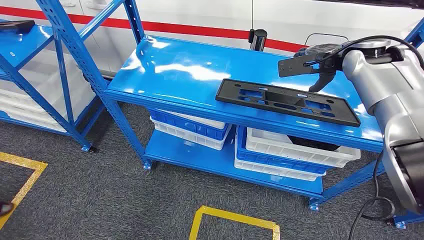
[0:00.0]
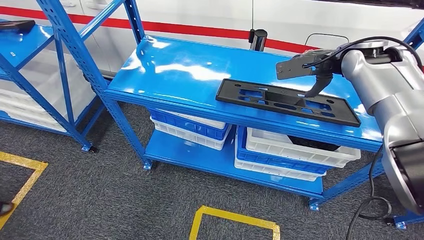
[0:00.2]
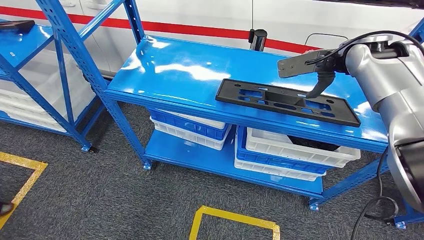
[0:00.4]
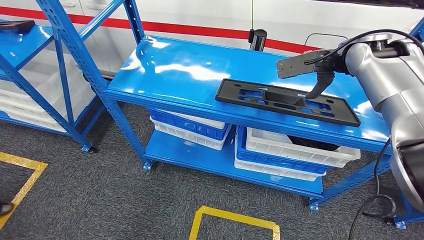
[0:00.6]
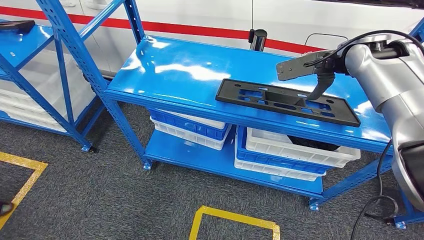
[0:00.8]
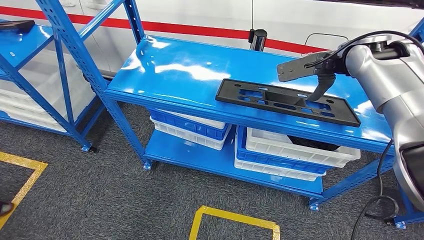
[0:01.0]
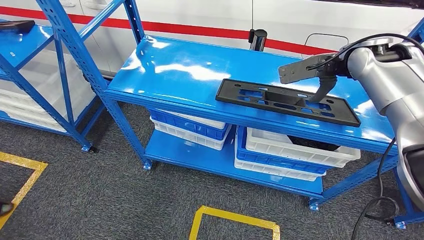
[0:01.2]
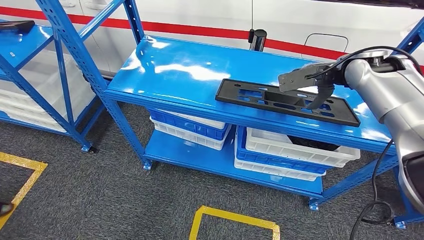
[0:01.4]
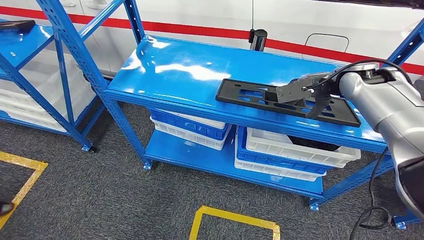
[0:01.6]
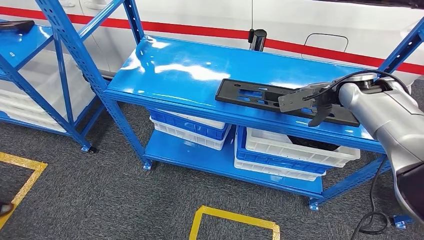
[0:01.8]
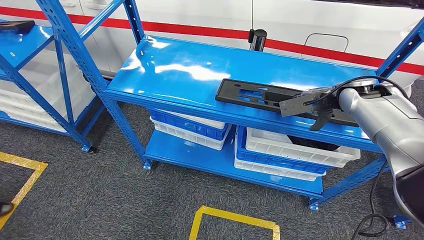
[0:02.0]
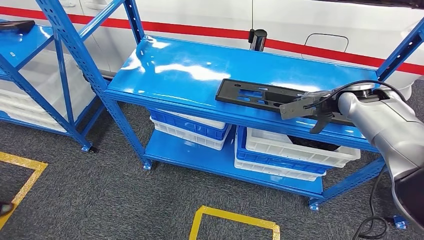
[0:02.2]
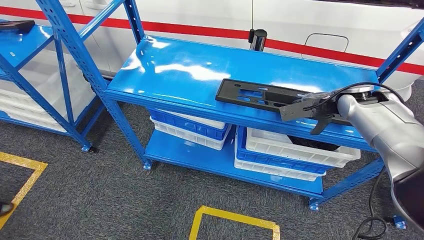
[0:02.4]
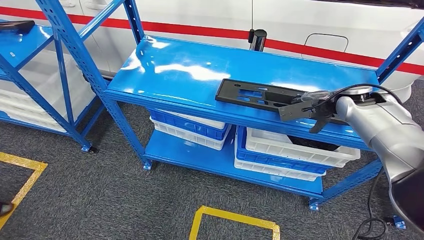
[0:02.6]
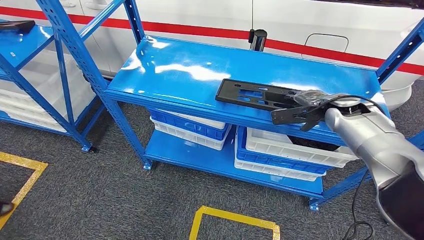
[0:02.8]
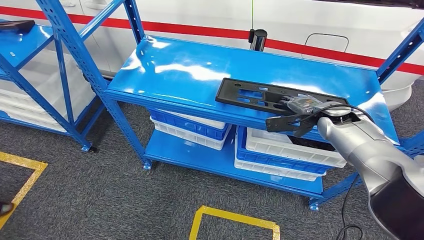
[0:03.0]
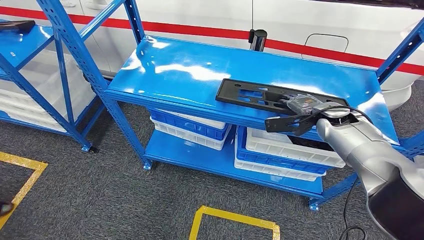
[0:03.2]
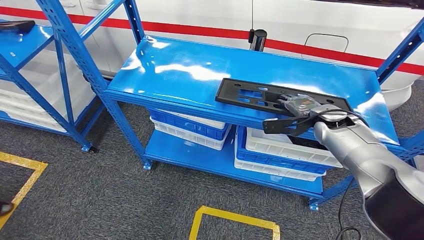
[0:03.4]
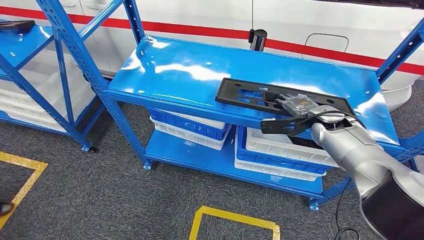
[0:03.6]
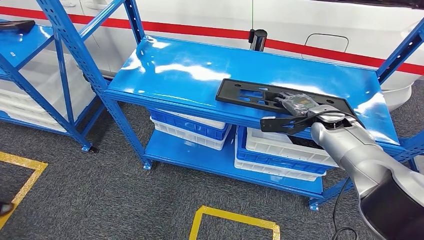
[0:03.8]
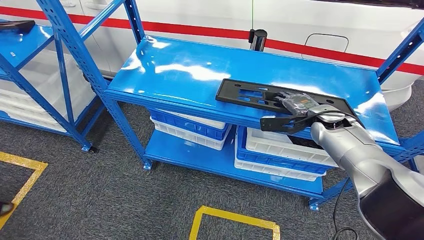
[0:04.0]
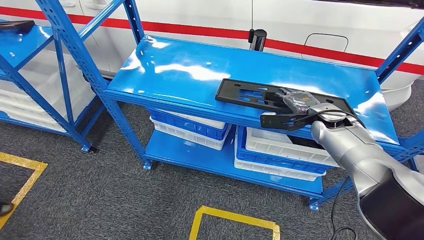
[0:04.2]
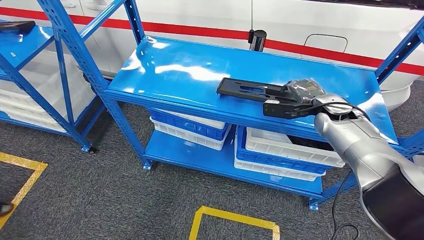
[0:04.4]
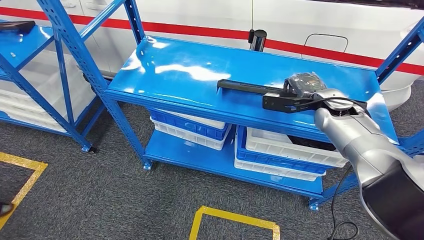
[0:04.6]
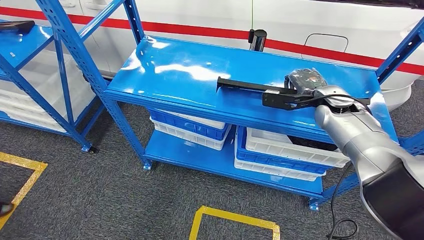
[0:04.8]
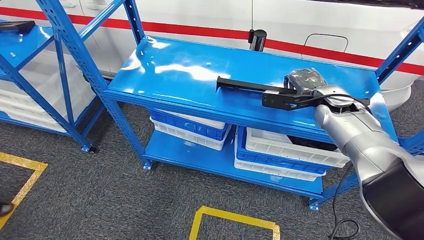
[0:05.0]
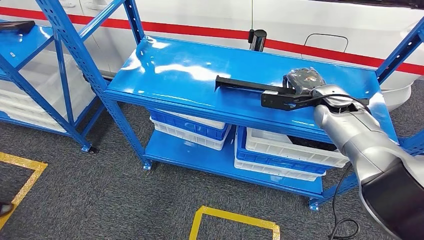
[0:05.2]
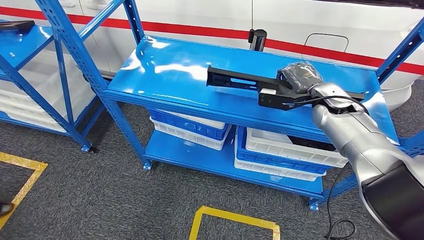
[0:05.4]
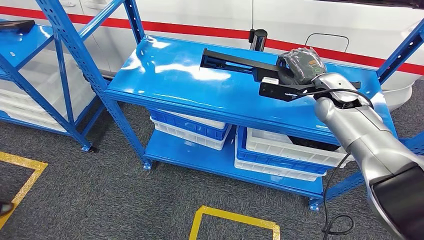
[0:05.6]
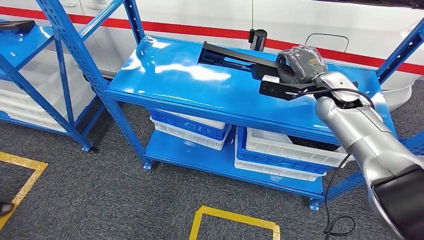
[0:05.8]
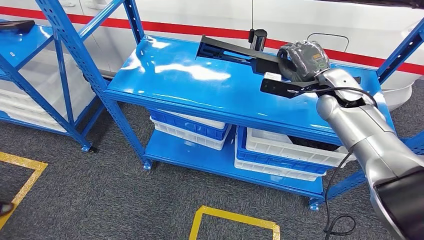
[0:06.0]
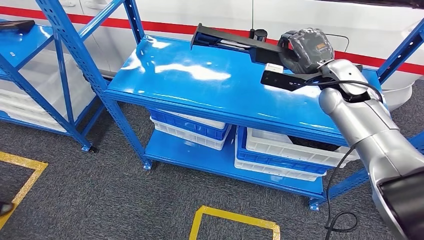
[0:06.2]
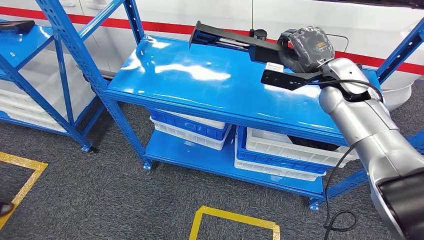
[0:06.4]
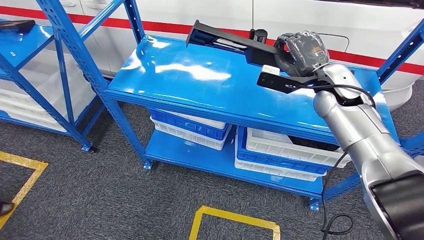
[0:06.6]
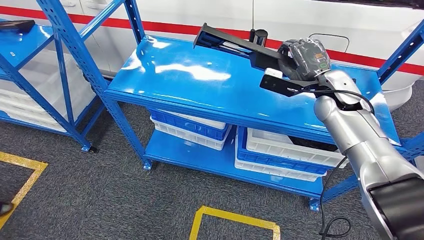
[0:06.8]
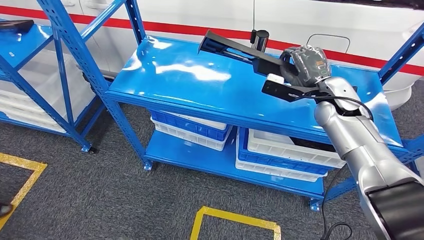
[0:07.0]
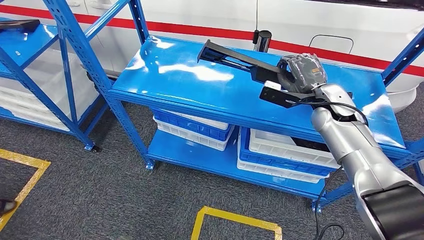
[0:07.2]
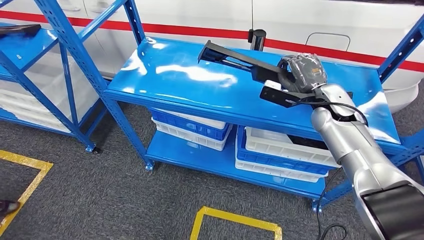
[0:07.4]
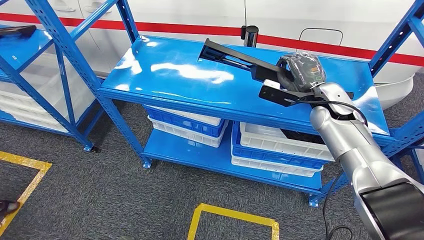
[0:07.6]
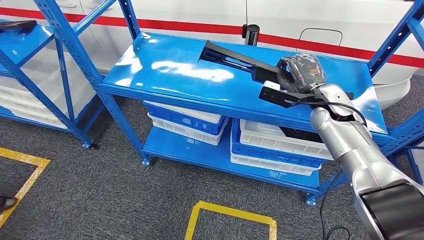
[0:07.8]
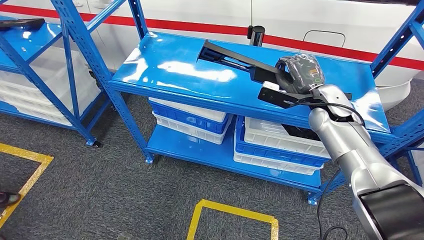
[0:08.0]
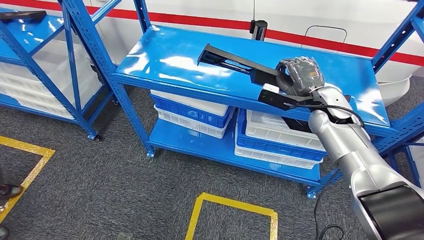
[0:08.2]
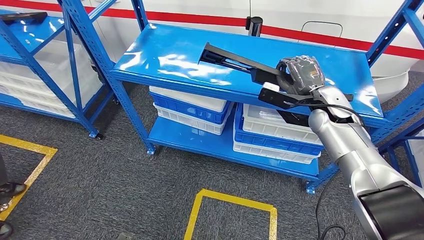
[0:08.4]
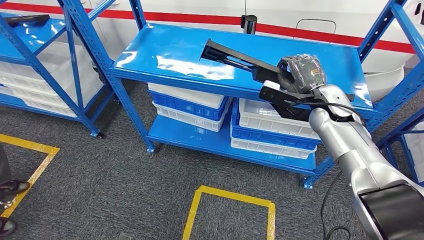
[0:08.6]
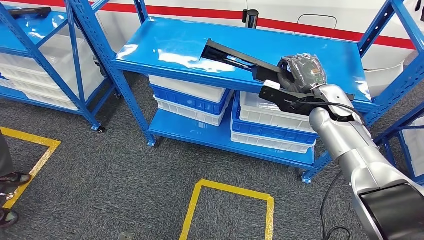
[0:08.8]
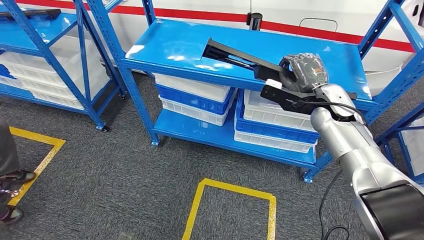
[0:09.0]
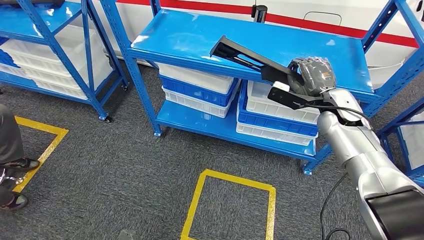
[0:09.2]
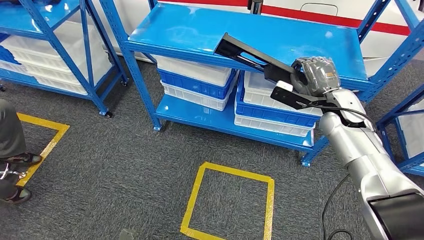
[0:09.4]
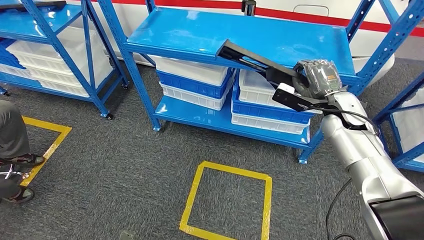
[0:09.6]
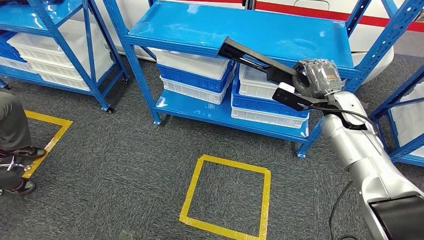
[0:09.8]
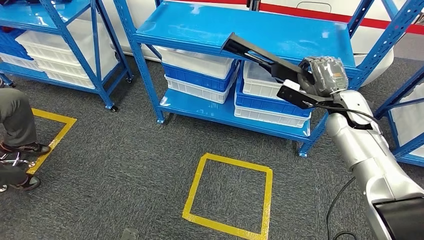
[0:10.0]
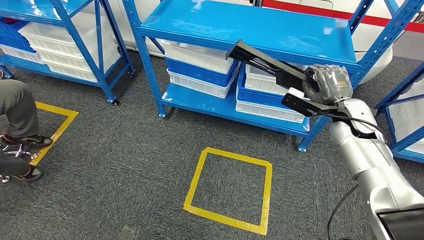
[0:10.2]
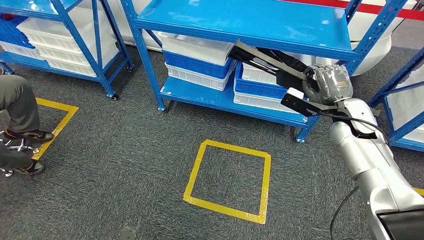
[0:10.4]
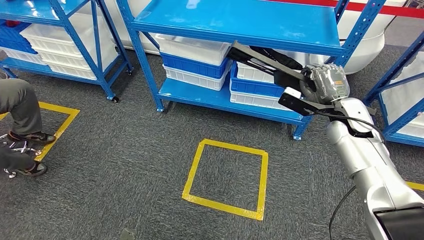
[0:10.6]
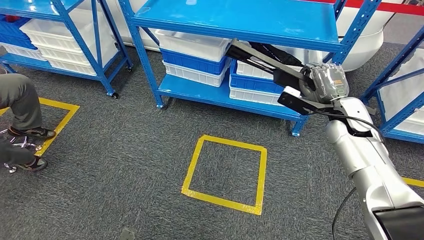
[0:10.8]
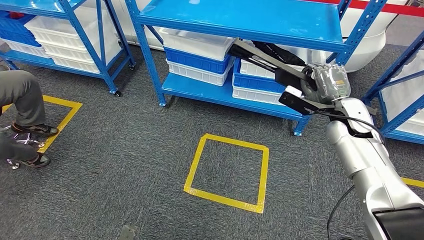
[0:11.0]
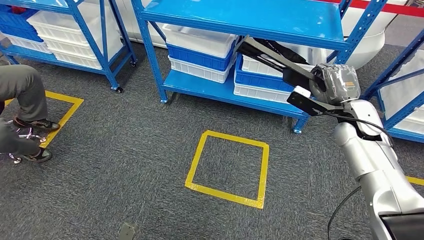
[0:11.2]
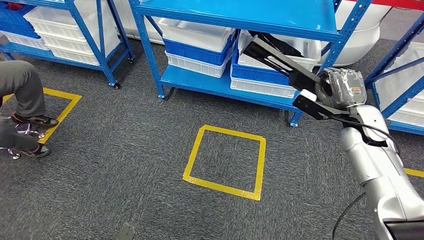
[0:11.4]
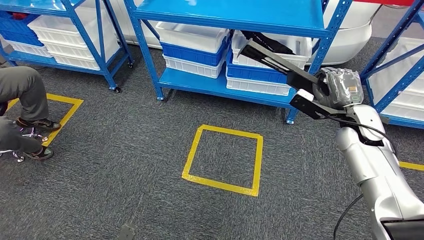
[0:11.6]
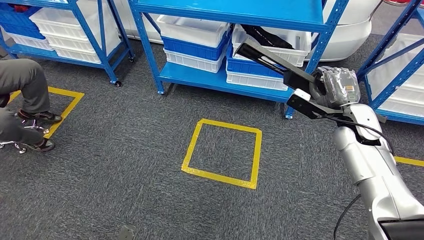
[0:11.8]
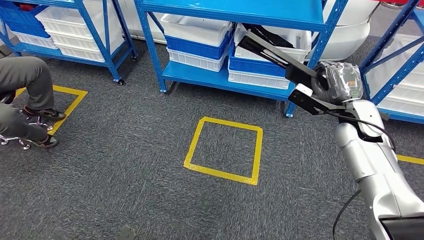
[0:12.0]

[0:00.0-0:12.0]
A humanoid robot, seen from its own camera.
1.6 to 3.0 s: The right hand goes approximately 10 cm downward.
3.0 to 4.4 s: The hands make only small movements.
4.4 to 6.0 s: The right hand travels upward by about 5 cm.

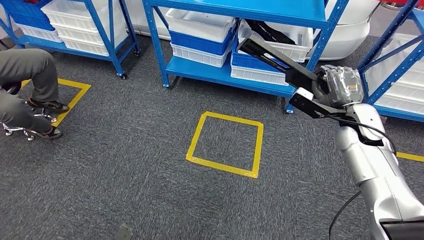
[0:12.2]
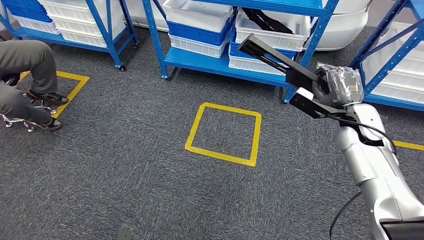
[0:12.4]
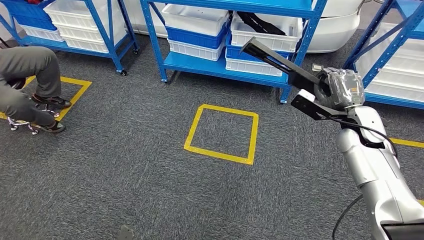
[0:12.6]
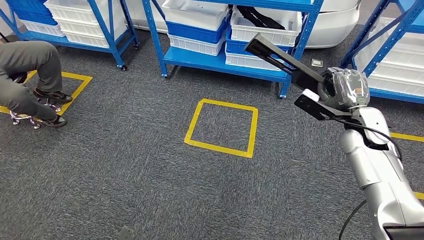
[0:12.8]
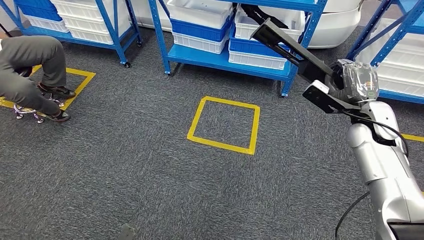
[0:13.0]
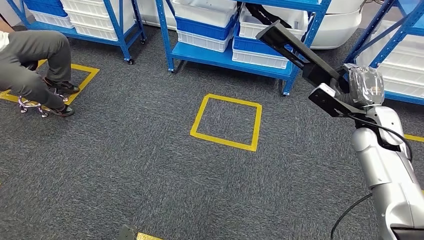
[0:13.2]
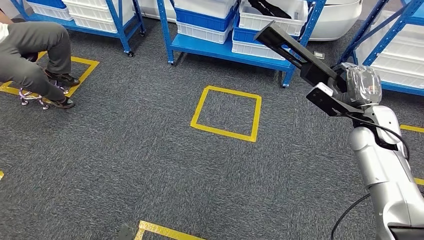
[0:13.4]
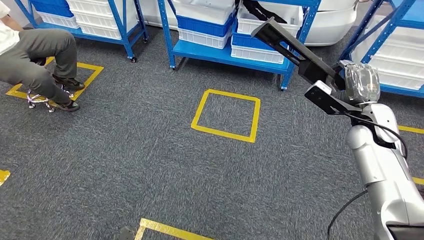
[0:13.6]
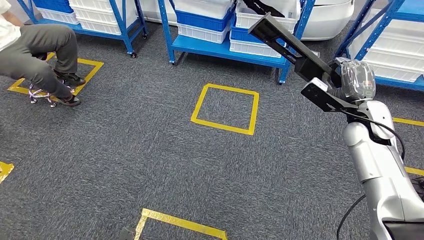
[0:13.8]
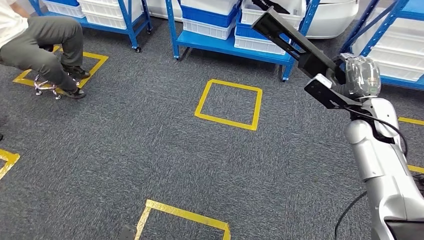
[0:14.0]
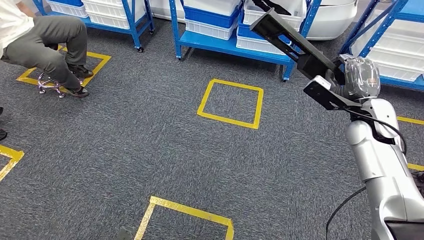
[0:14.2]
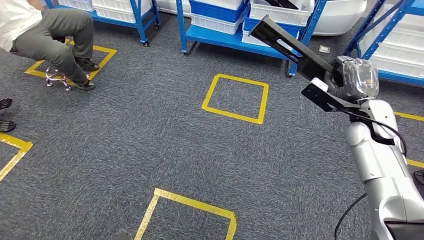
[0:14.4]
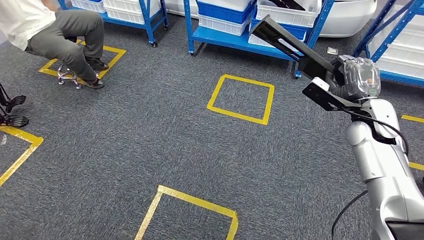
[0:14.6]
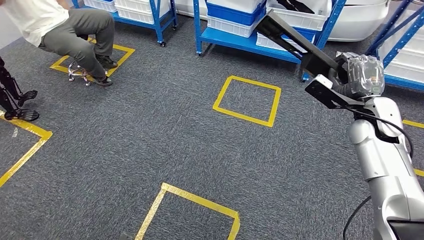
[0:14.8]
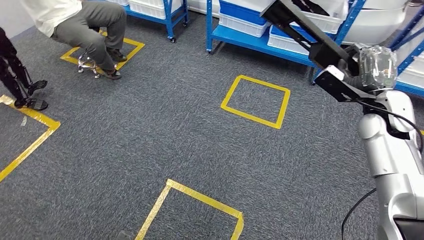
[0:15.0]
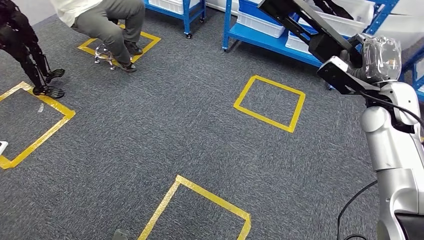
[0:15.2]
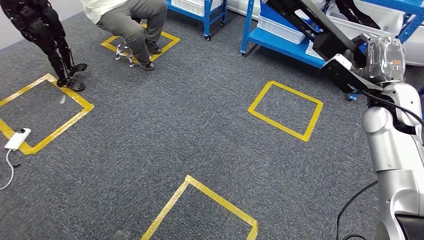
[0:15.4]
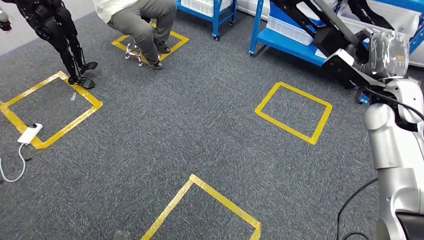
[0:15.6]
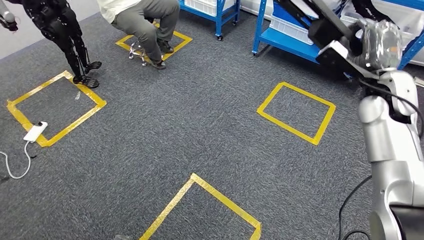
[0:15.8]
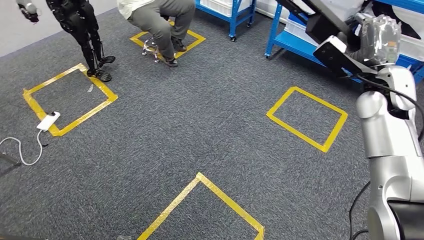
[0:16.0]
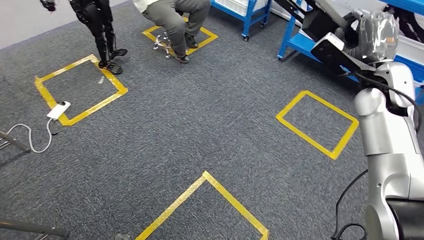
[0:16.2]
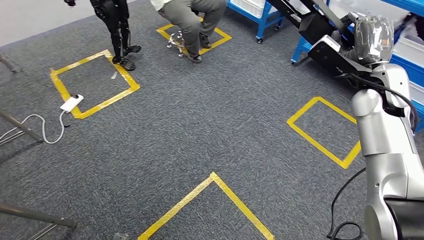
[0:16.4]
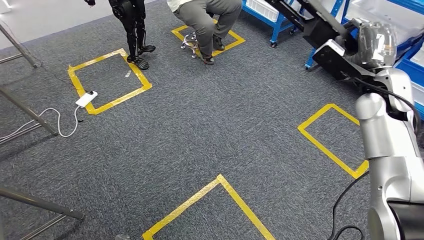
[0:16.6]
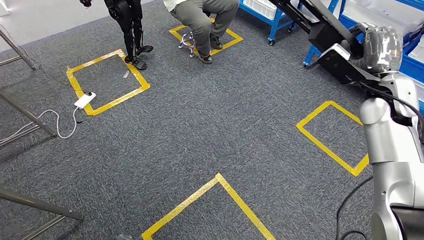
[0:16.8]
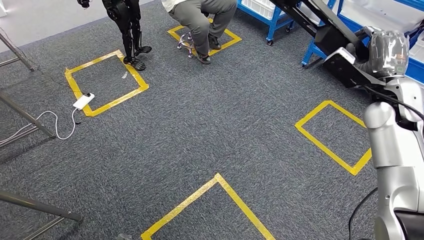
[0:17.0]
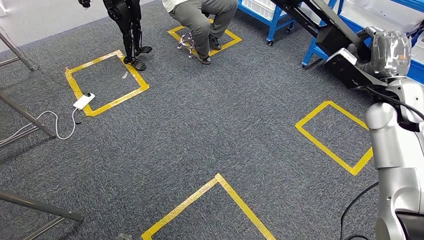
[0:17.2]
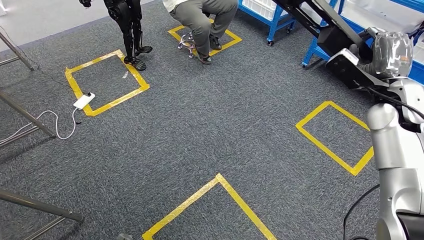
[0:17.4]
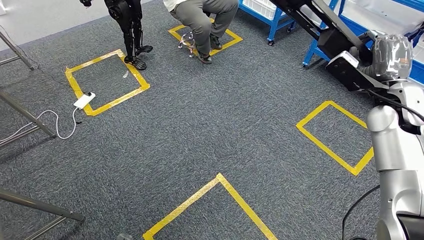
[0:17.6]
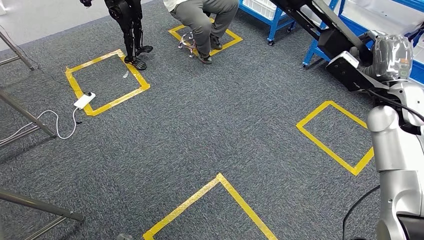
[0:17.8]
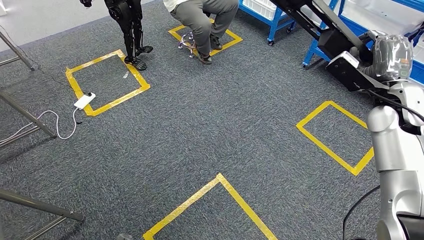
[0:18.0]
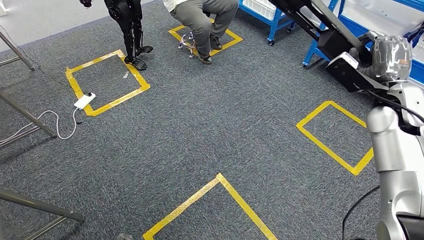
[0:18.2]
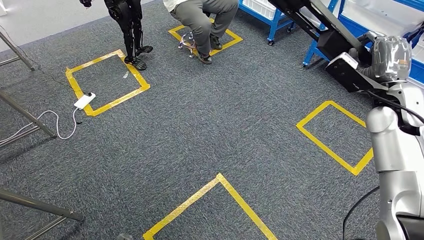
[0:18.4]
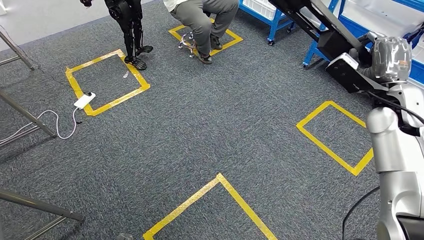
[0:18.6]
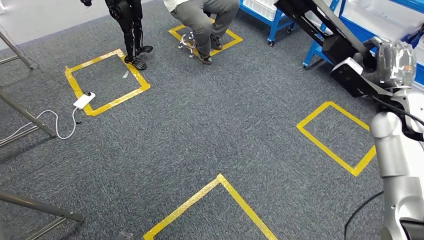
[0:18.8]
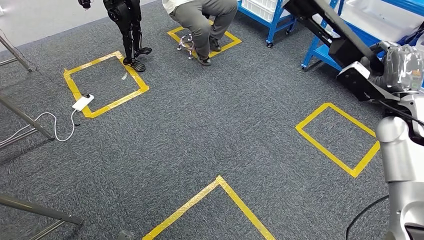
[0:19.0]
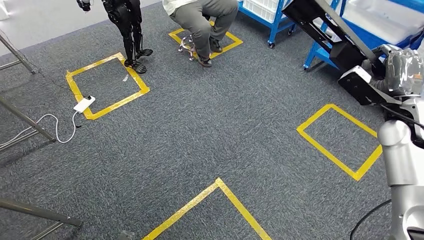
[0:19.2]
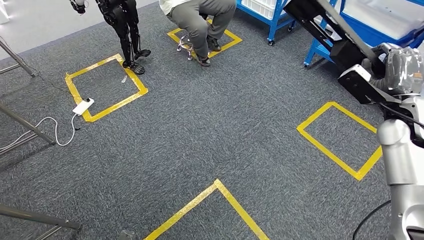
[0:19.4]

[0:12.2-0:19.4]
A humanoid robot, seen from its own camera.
16.6 to 18.0 s: The hands move only a little.
